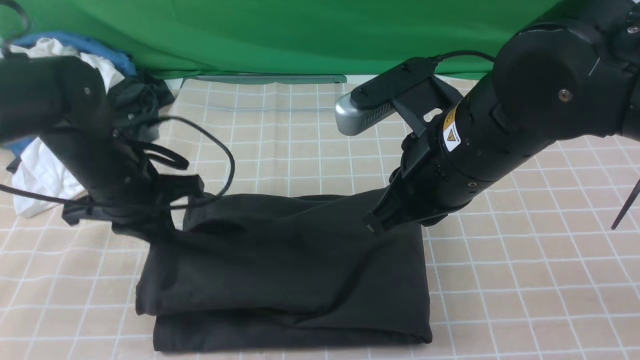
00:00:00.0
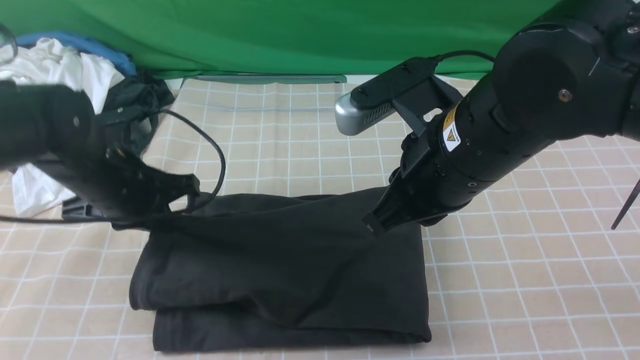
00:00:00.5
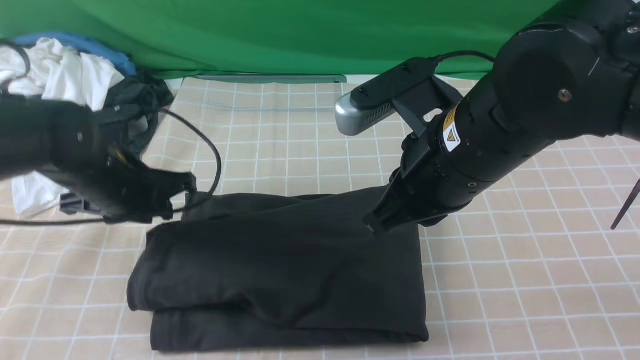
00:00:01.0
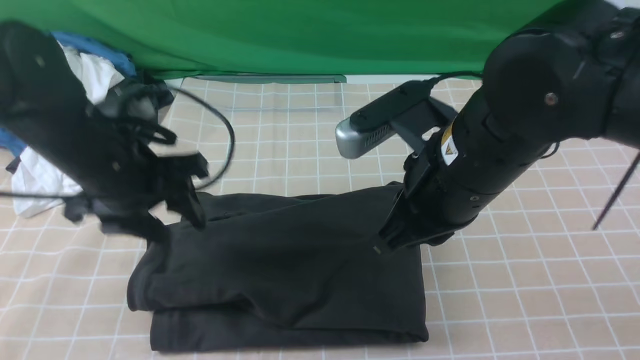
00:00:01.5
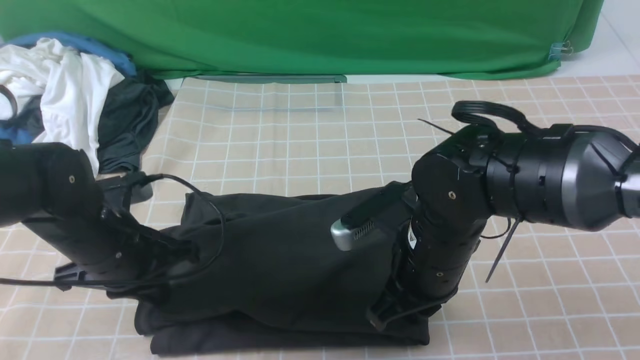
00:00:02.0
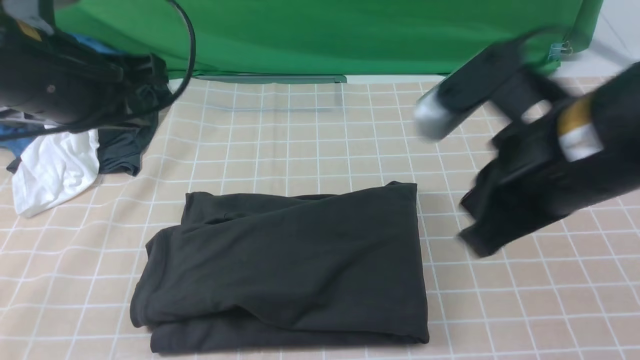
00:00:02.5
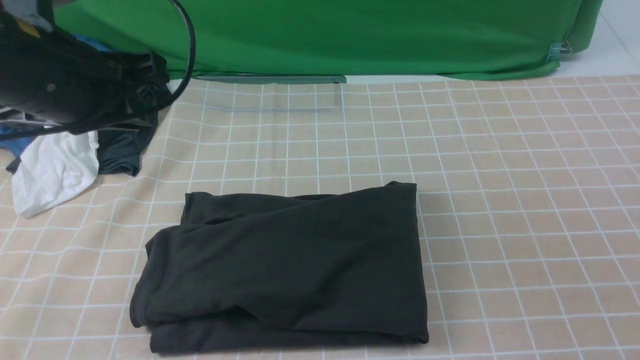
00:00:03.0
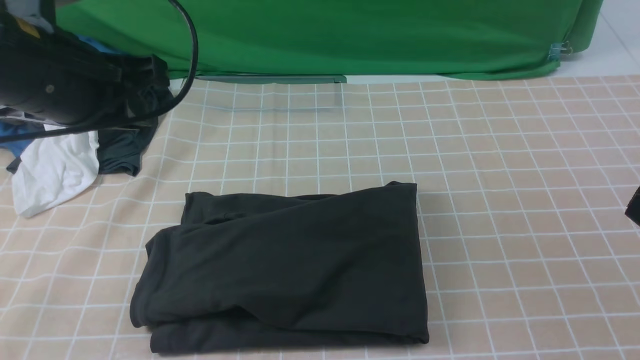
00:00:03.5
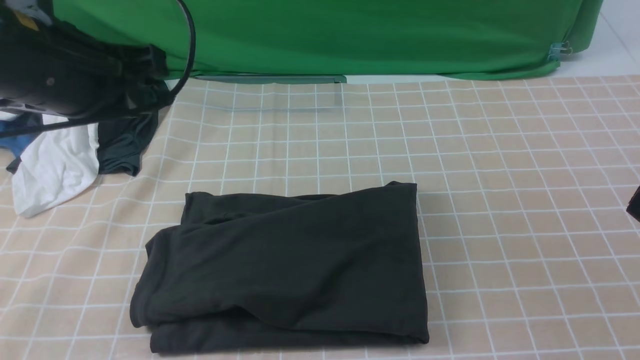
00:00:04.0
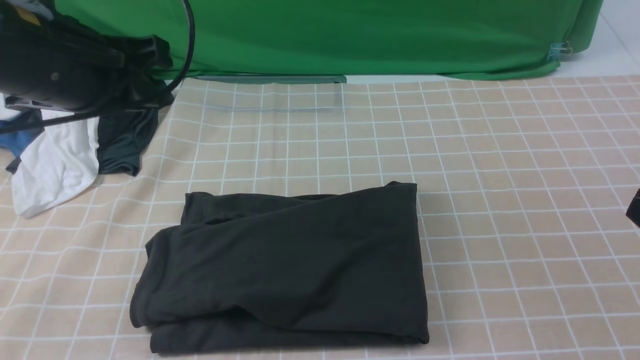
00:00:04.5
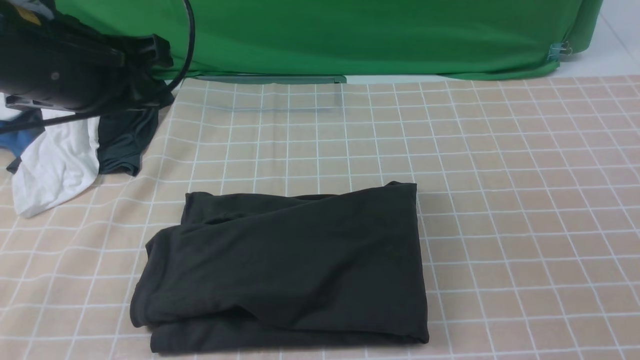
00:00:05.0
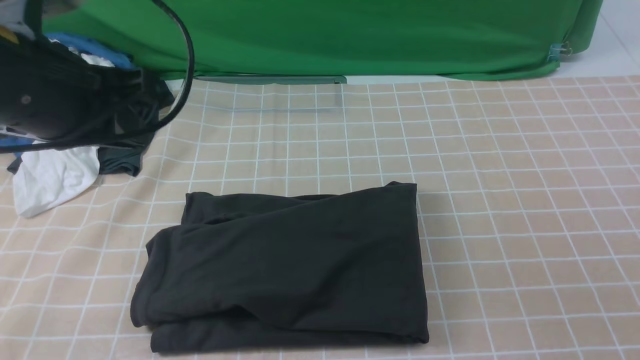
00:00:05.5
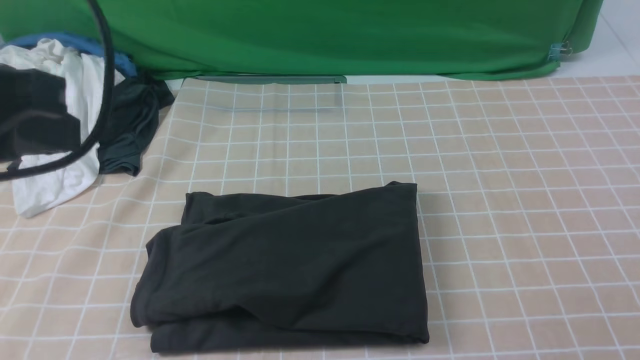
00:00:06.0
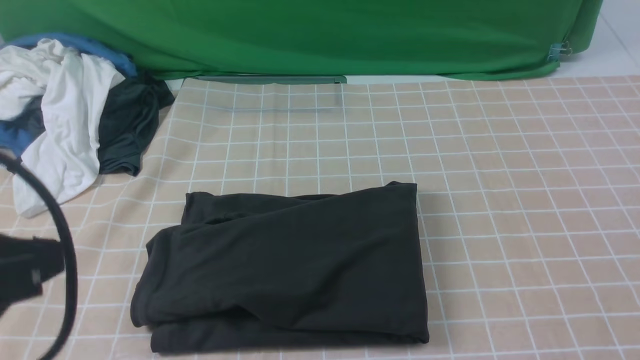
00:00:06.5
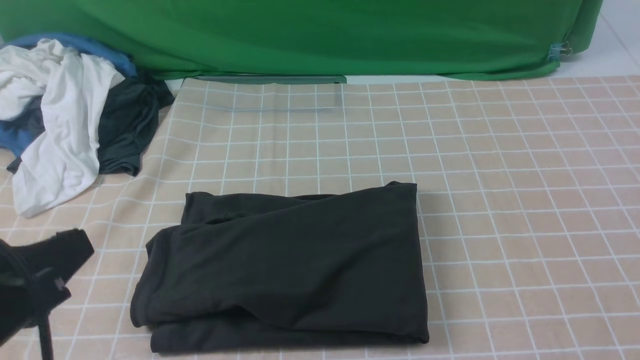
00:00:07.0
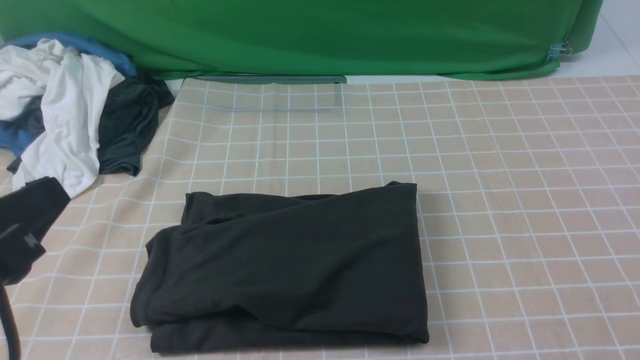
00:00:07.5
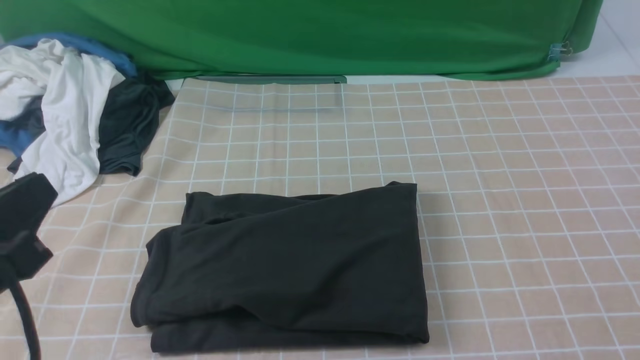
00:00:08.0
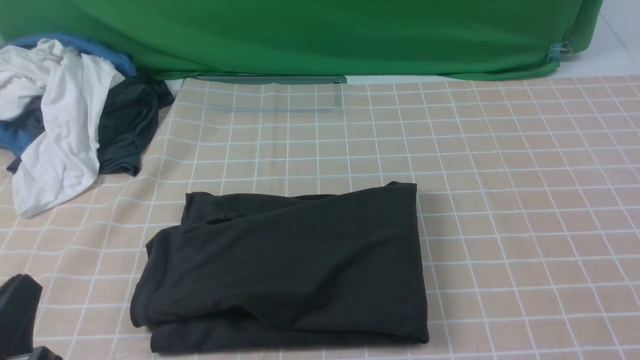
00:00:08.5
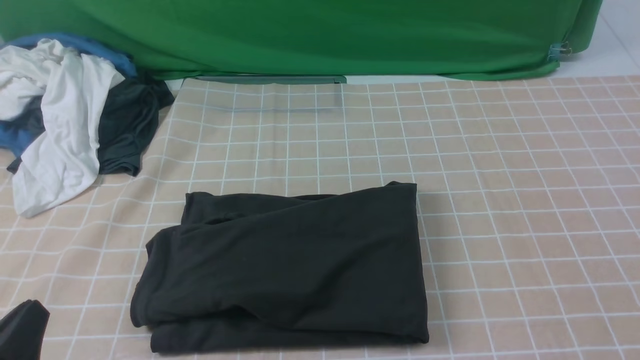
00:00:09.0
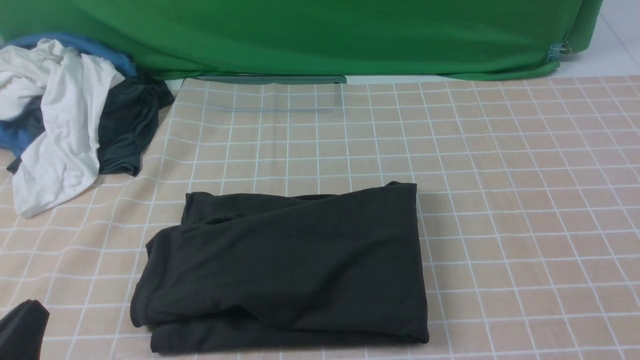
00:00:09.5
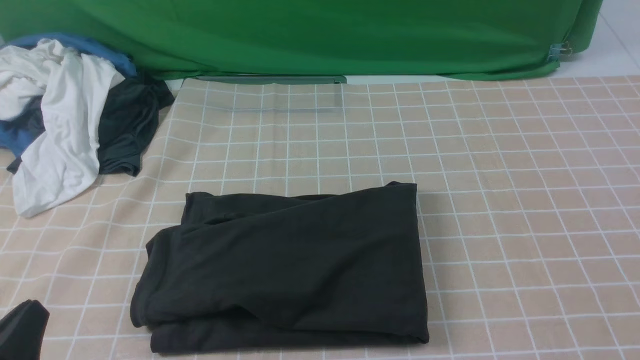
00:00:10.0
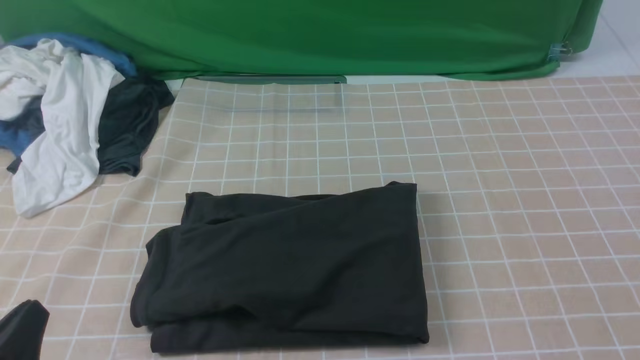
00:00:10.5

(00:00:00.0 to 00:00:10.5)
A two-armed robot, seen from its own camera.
00:00:00.0 - 00:00:02.0: The right gripper travels downward by about 10 cm. The left gripper travels backward by approximately 5 cm, and opens, then closes again.
00:00:02.0 - 00:00:04.0: The right gripper travels backward, to the right and upward by approximately 30 cm; the left gripper shifts roughly 15 cm upward.
00:00:04.0 - 00:00:06.5: The left gripper heads backward, covering approximately 20 cm.
00:00:06.5 - 00:00:08.5: The left gripper heads downward, covering roughly 15 cm.
00:00:08.5 - 00:00:10.5: The grippers stay close to where they were, moving slightly.
